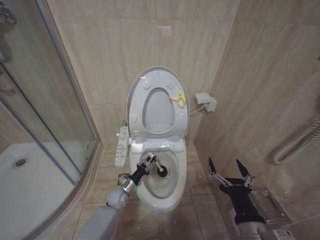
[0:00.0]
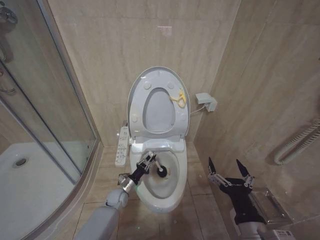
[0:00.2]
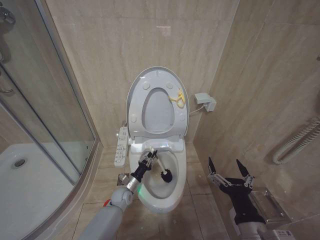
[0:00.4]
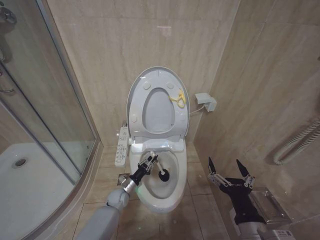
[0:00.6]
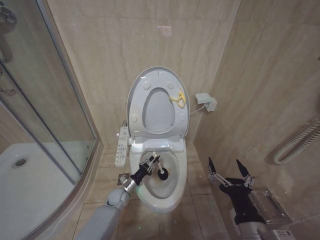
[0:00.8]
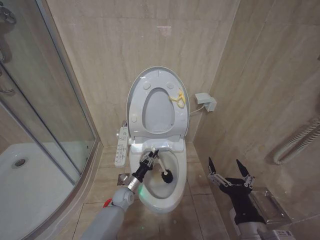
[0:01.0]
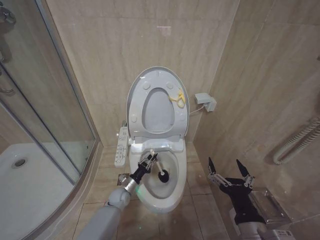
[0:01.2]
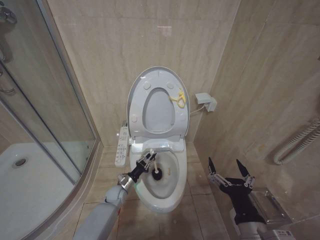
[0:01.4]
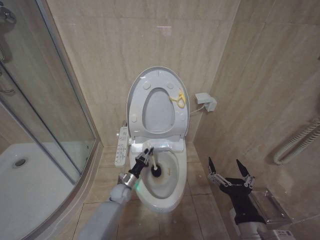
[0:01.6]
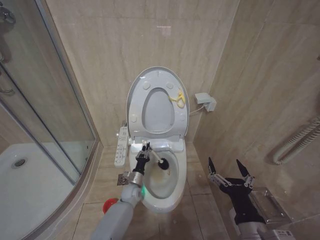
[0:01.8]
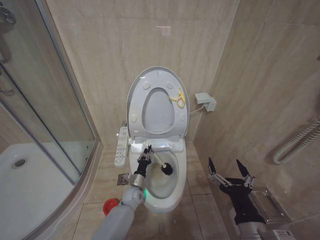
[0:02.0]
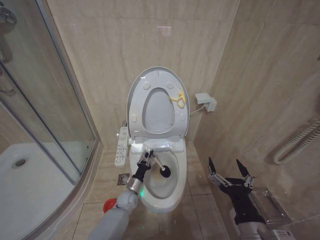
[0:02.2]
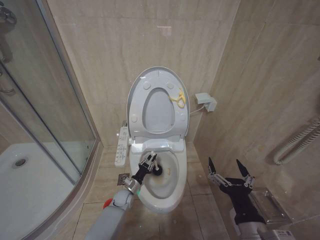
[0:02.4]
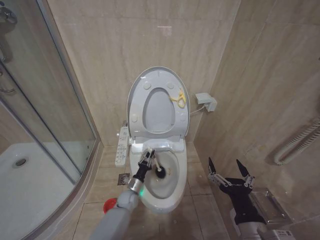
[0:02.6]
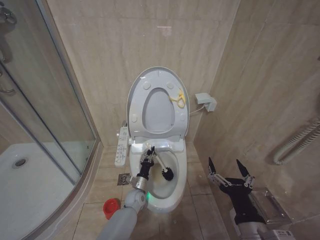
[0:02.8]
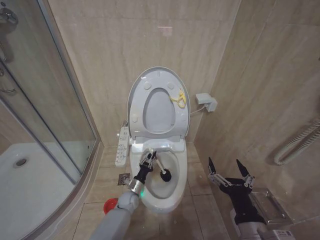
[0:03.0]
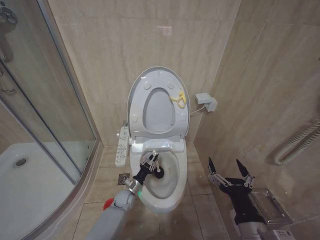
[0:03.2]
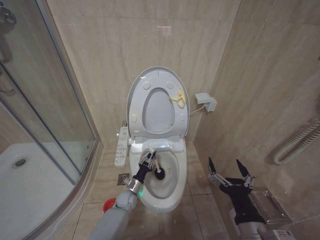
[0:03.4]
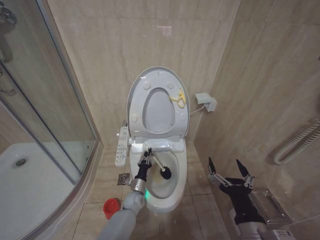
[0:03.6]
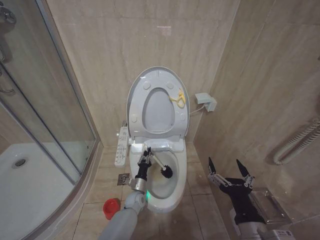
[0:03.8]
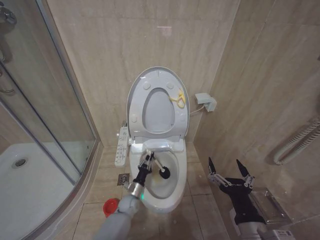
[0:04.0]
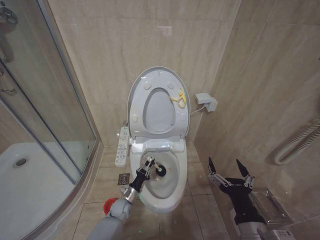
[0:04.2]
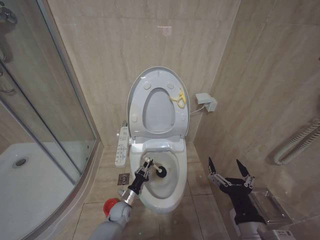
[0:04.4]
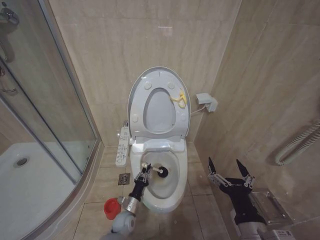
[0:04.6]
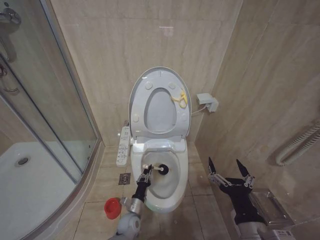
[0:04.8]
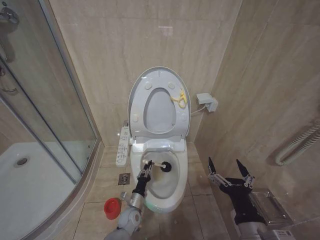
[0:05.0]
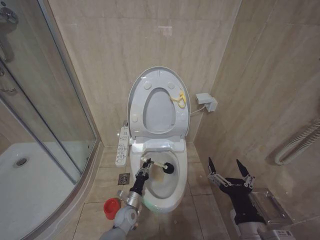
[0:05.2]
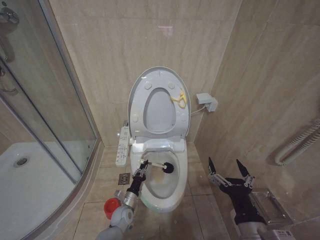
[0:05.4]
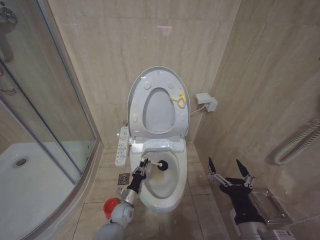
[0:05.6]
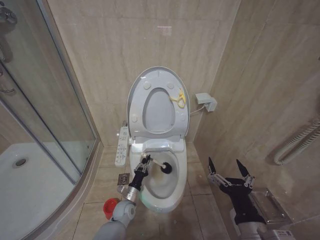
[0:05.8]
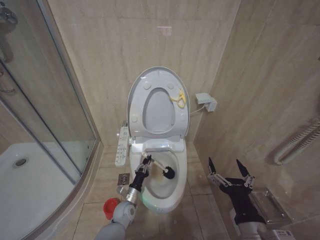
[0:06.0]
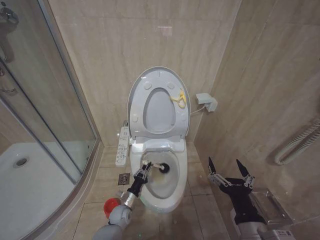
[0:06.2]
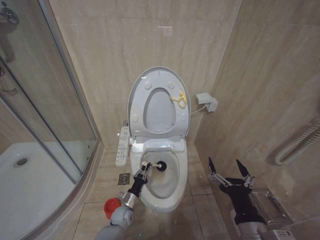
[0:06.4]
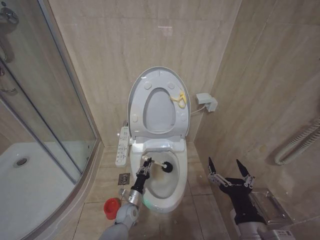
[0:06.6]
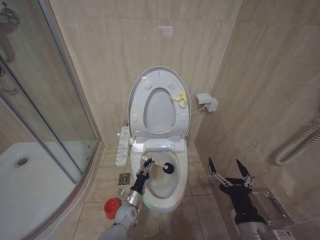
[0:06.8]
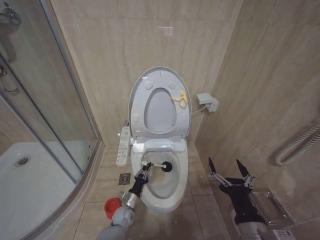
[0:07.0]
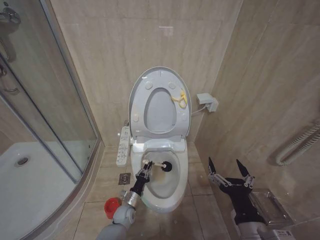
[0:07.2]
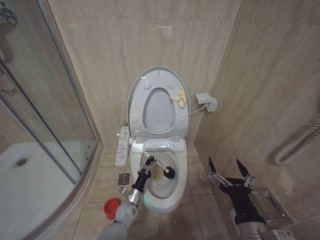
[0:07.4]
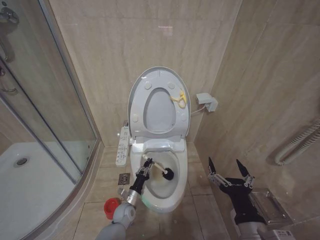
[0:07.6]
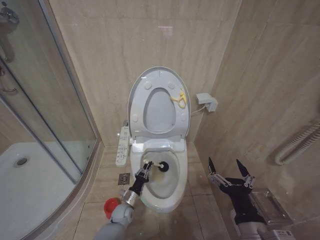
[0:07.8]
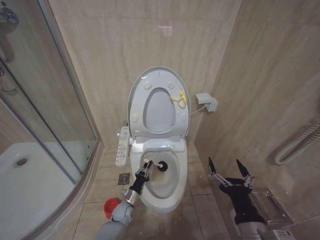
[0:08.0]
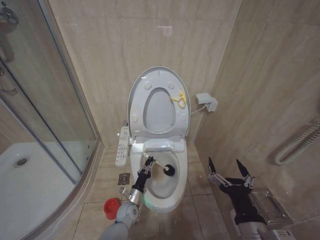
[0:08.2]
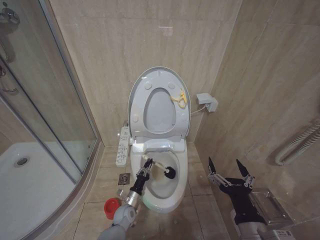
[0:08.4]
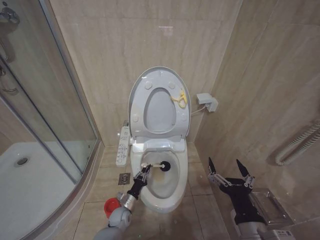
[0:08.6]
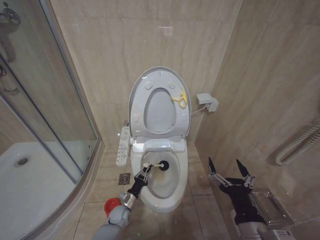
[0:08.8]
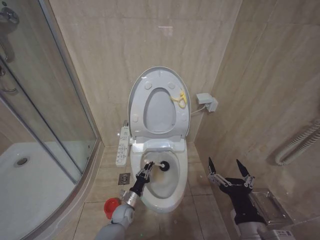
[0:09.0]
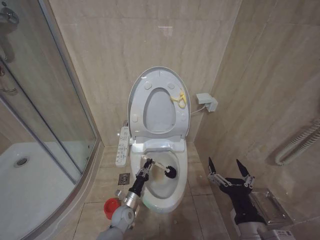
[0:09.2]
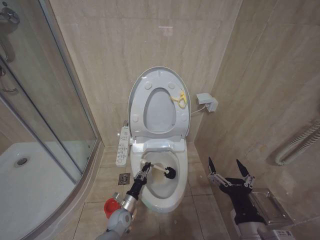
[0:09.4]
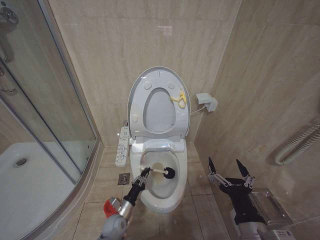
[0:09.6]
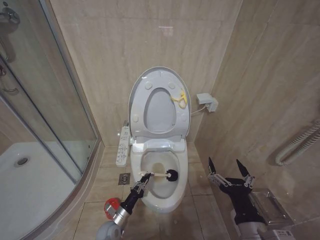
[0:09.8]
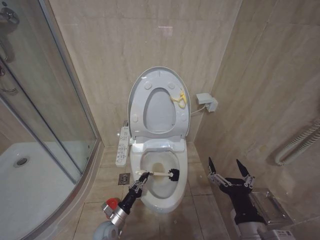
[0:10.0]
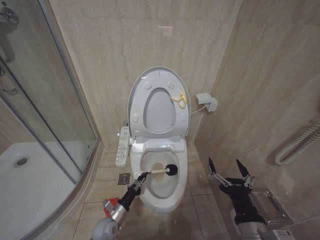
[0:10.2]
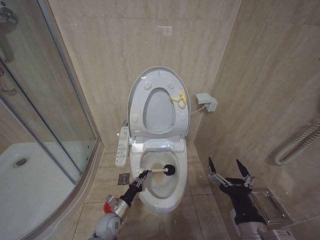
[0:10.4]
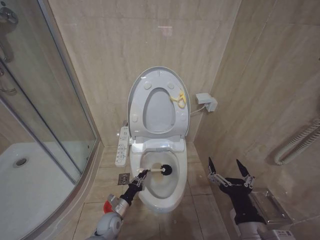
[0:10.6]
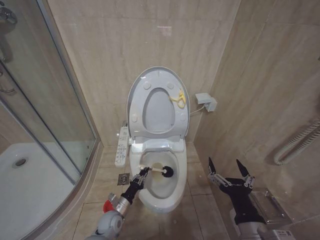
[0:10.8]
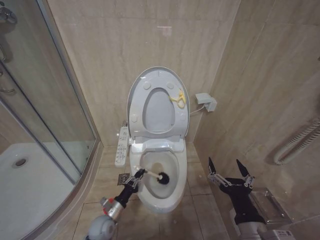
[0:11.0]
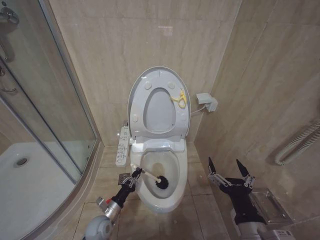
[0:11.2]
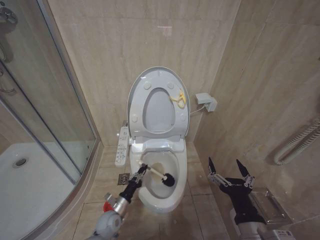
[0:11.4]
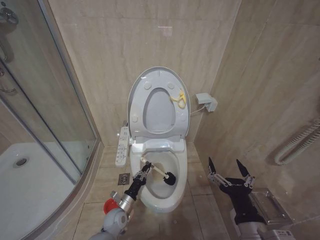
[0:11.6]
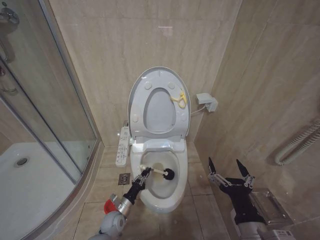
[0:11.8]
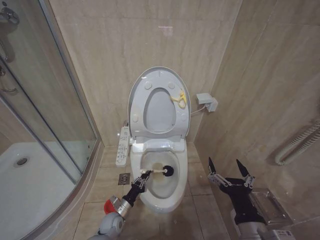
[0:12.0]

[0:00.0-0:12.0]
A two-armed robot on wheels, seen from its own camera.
Task of the whole recording: Open the toilet lid, clean the toilet bowl with a toilet brush, close the toilet lid, and flush.
0:00.0 to 0:01.6: The grippers make only small movements.
0:01.6 to 0:03.0: The left gripper goes left and right, about 10 cm each way, reversing 2 times.
0:03.0 to 0:04.4: The left gripper shifts by approximately 5 cm.
0:09.0 to 0:10.4: The left gripper goes approximately 5 cm to the left.
0:10.4 to 0:12.0: The grippers move only a little.

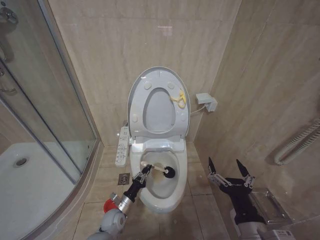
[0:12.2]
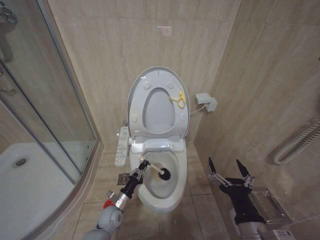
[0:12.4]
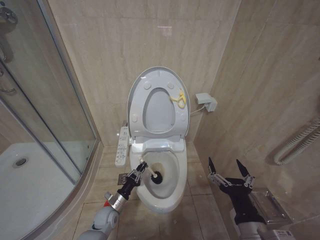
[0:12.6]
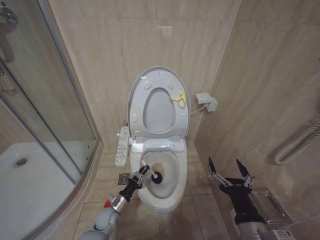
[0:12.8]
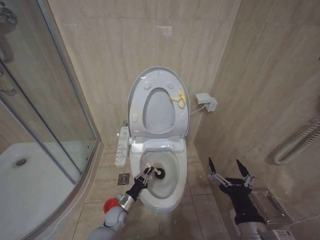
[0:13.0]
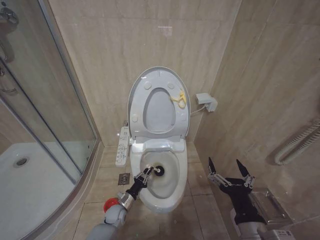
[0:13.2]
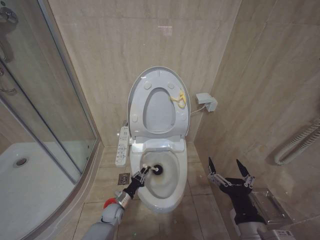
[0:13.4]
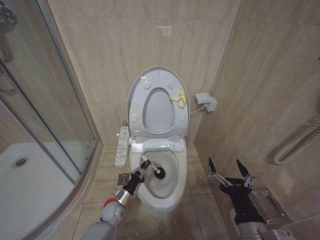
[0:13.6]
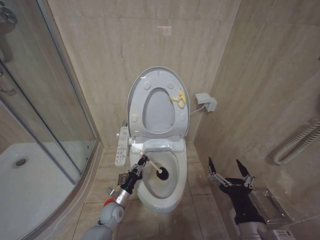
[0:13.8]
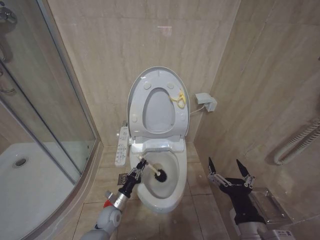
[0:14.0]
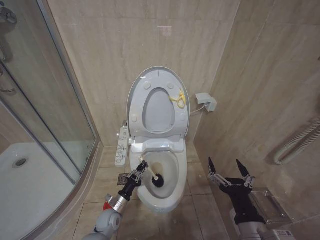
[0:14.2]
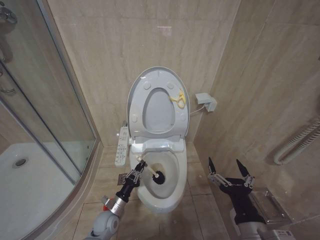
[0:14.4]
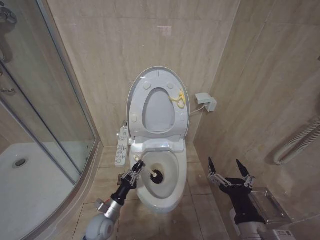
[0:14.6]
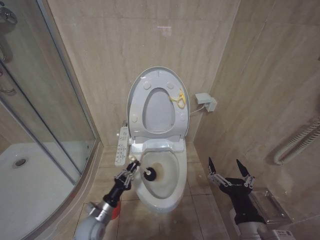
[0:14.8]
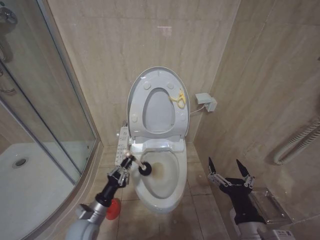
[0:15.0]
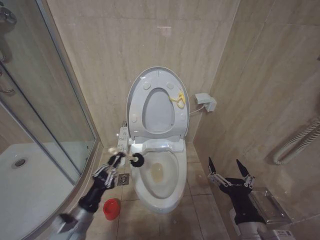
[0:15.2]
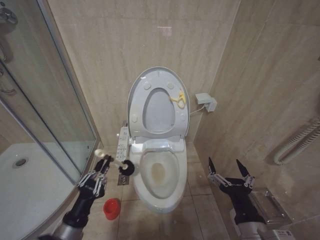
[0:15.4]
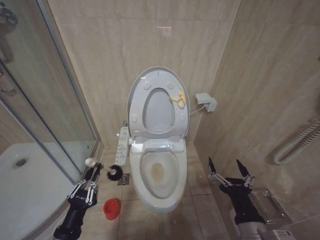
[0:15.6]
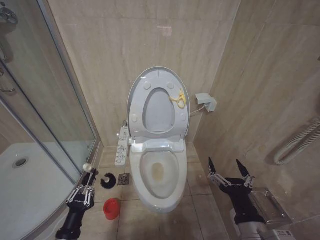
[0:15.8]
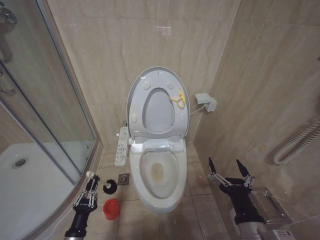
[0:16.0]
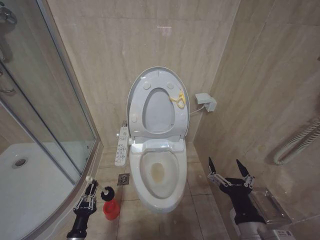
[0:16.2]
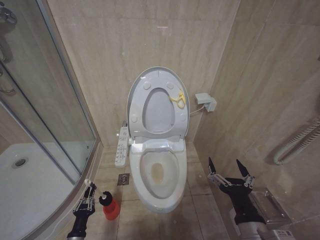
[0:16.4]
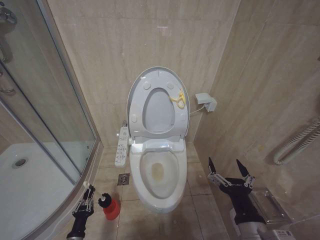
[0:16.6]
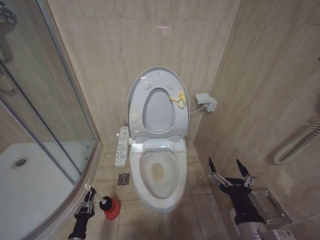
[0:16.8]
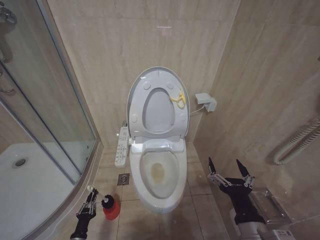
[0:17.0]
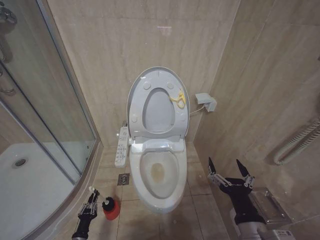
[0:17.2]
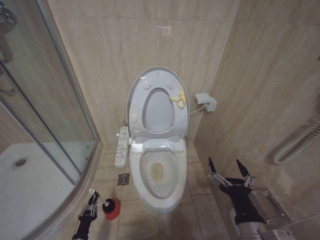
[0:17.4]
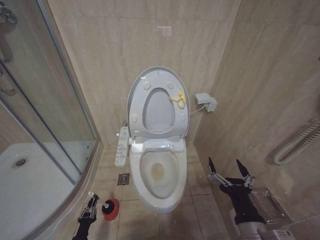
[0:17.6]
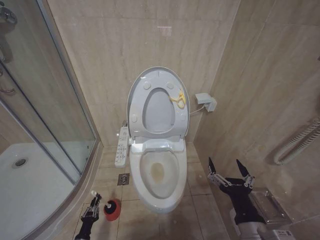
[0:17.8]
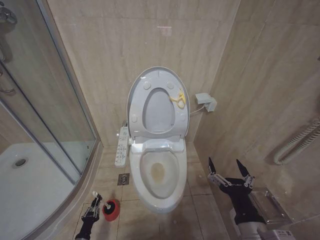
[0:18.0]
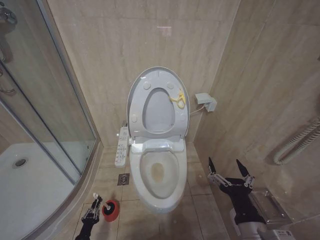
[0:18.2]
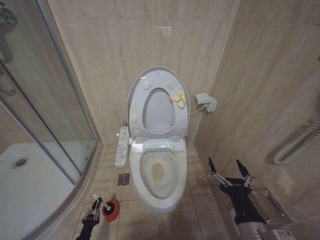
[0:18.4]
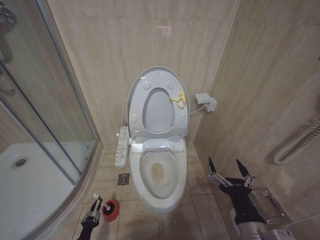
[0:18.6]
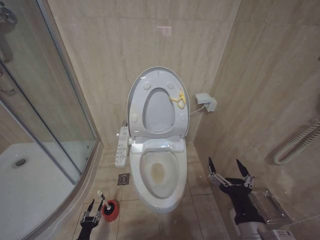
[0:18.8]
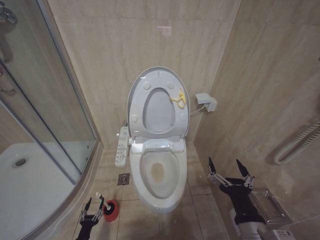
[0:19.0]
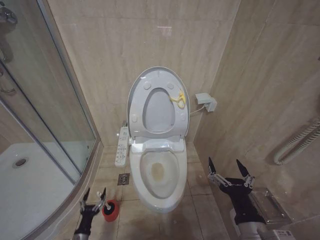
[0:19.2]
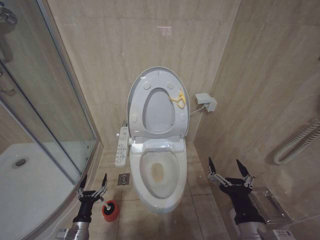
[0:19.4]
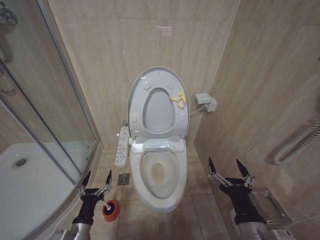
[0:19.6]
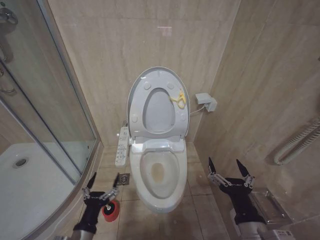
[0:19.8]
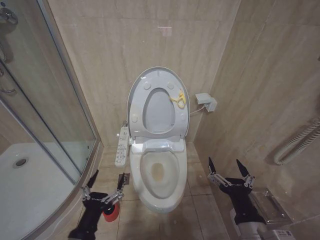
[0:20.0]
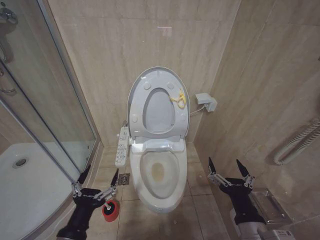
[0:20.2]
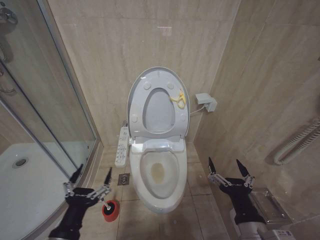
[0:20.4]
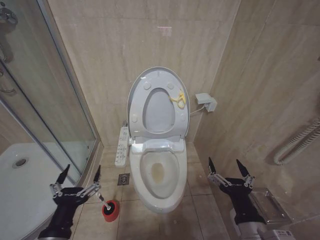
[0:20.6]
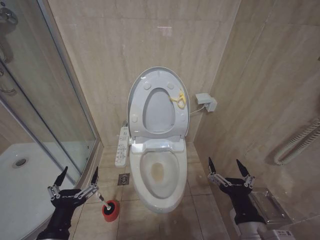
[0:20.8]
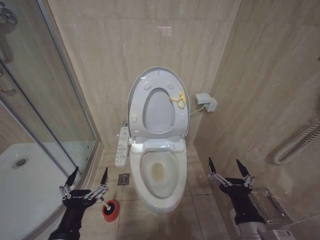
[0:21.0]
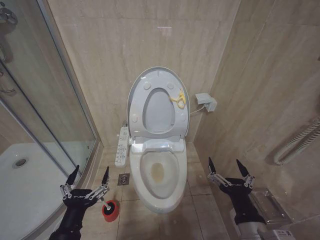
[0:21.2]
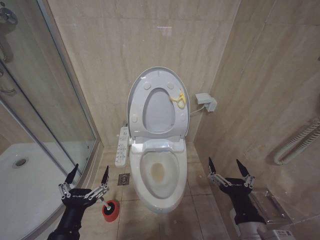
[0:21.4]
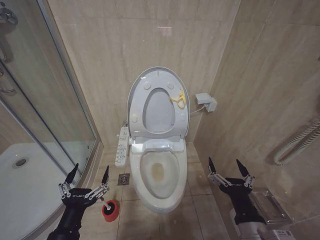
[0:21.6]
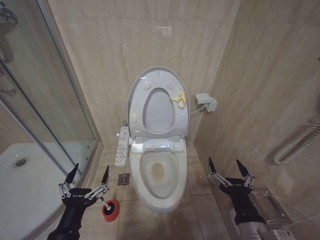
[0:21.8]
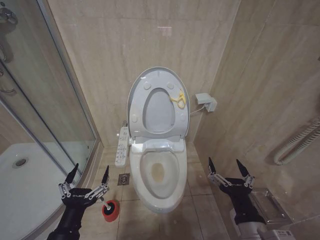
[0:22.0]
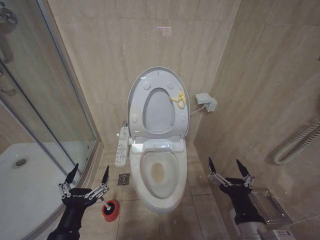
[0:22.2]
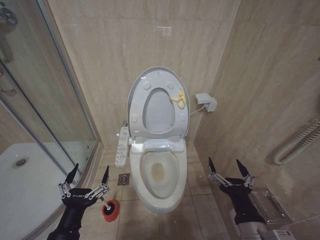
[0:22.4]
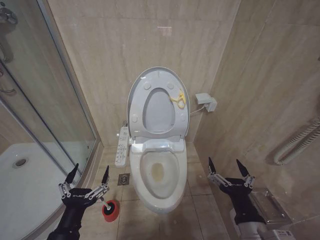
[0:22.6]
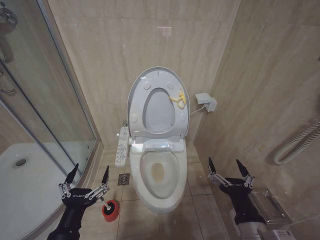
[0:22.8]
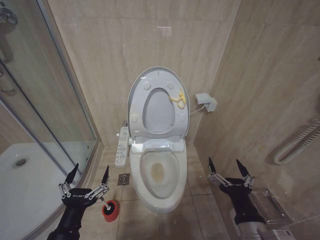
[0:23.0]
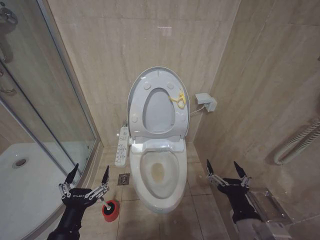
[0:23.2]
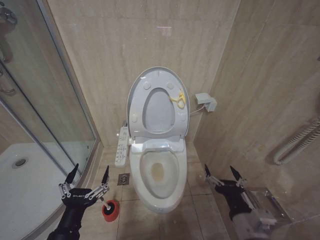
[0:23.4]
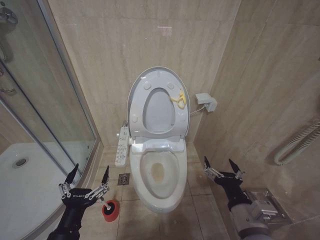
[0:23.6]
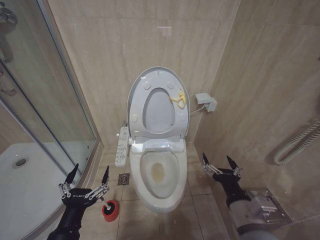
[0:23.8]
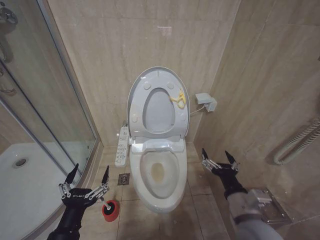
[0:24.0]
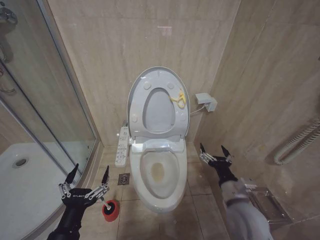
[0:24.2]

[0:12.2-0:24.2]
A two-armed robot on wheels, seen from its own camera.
Task of the whole recording: Open the toilet lid, clean the toilet bowl with a toilet brush, close the toilet lid, and flush.
0:13.8 to 0:15.2: The left gripper moves upward, backward and to the left, approximately 20 cm.
0:15.2 to 0:16.6: The left gripper is displaced downward by some 20 cm.
0:16.6 to 0:18.2: The left gripper goes some 10 cm downward.
0:18.2 to 0:19.8: The left gripper travels upward by roughly 30 cm, and opens up.
0:19.8 to 0:21.2: The left gripper goes roughly 10 cm upward.
0:21.2 to 0:22.6: Both grippers stay about where they are.
0:22.6 to 0:24.2: The right gripper heads forward, covering some 10 cm.
